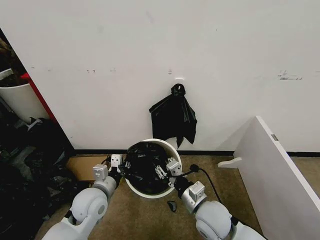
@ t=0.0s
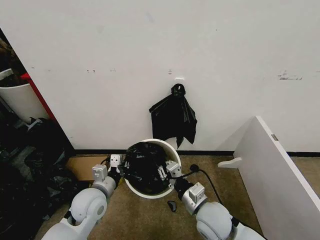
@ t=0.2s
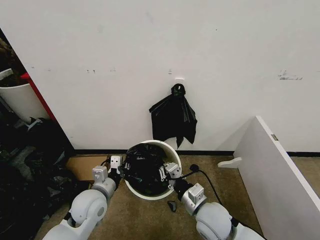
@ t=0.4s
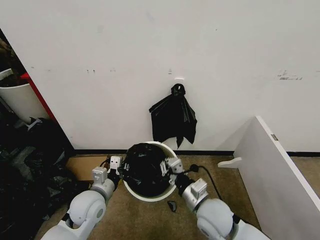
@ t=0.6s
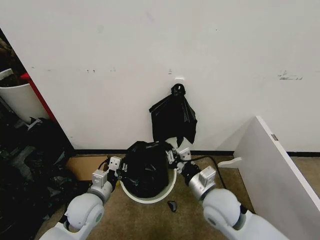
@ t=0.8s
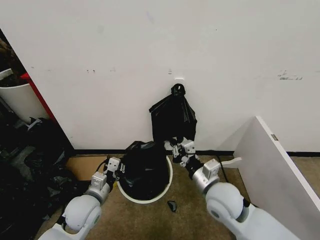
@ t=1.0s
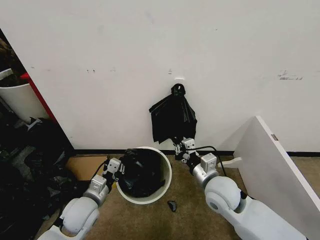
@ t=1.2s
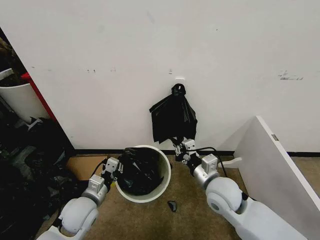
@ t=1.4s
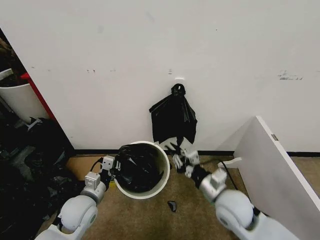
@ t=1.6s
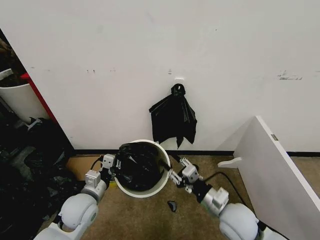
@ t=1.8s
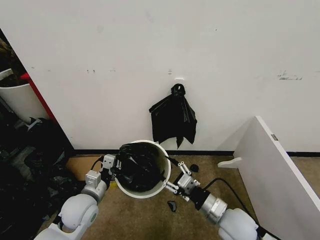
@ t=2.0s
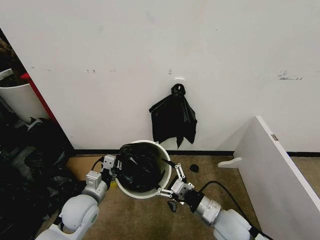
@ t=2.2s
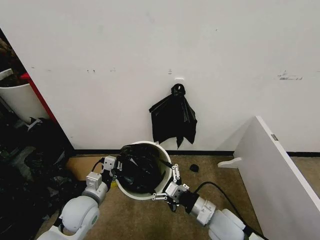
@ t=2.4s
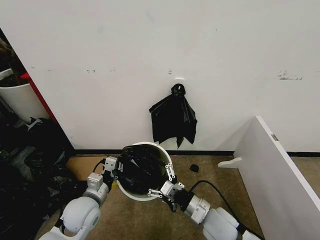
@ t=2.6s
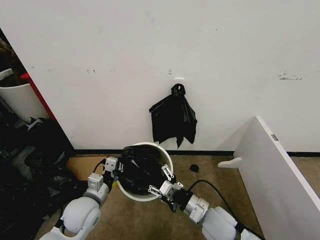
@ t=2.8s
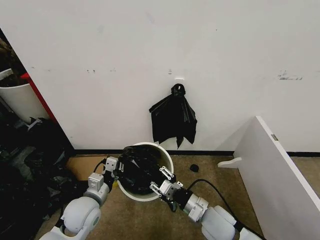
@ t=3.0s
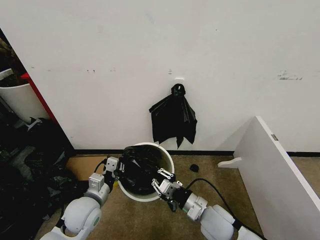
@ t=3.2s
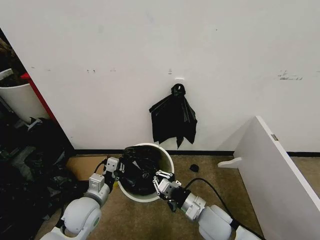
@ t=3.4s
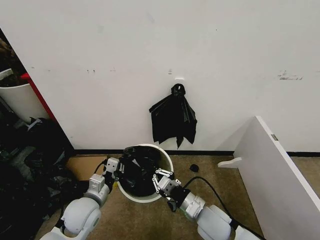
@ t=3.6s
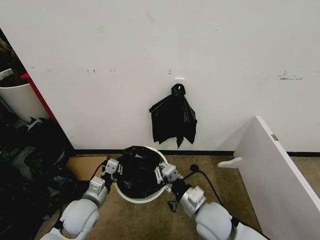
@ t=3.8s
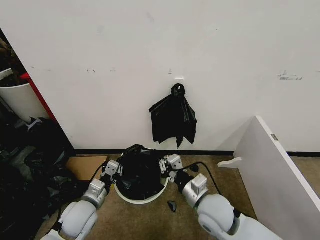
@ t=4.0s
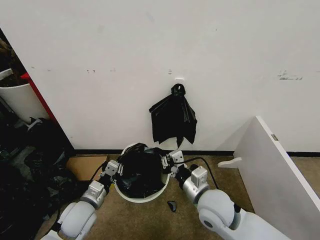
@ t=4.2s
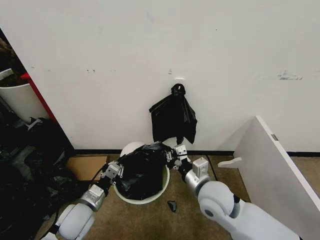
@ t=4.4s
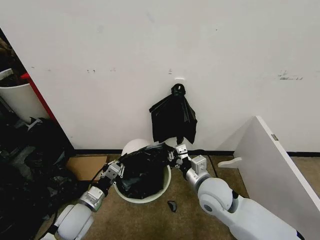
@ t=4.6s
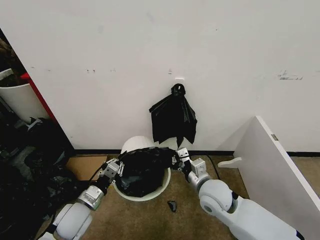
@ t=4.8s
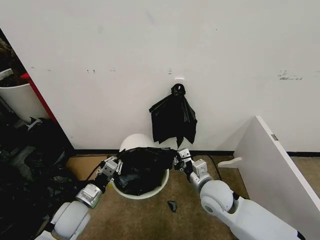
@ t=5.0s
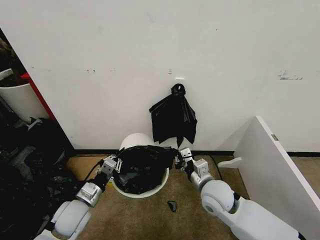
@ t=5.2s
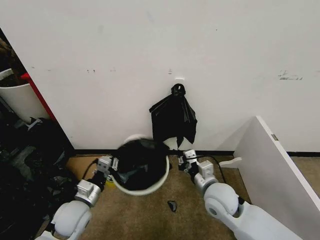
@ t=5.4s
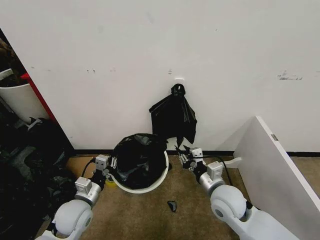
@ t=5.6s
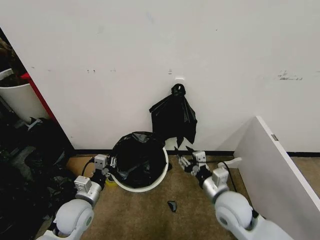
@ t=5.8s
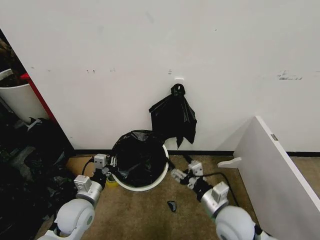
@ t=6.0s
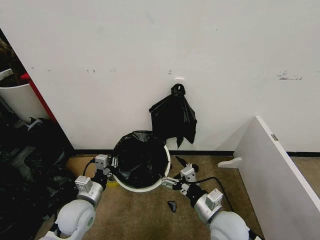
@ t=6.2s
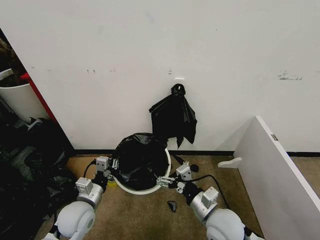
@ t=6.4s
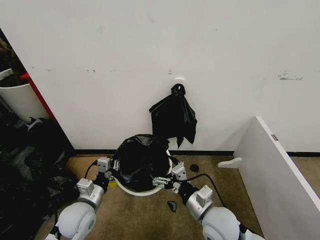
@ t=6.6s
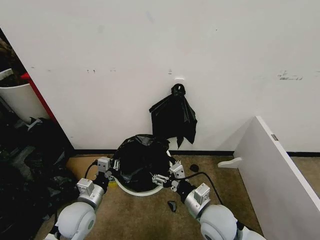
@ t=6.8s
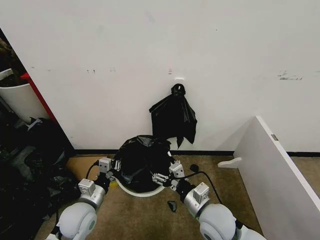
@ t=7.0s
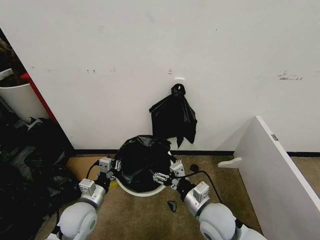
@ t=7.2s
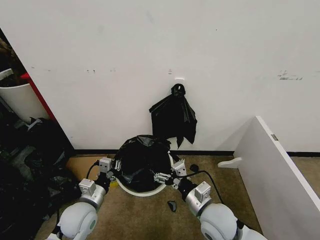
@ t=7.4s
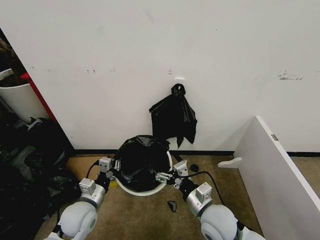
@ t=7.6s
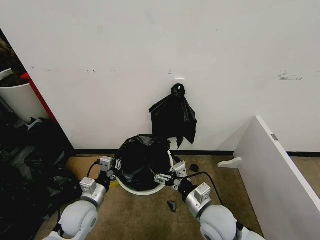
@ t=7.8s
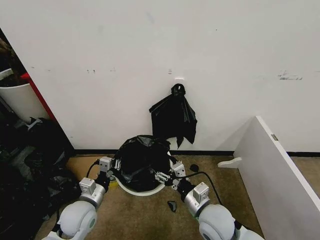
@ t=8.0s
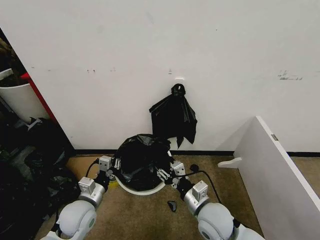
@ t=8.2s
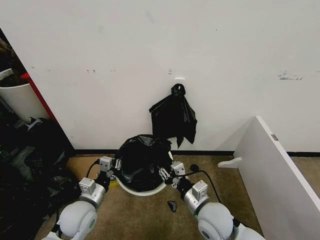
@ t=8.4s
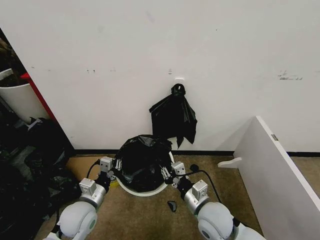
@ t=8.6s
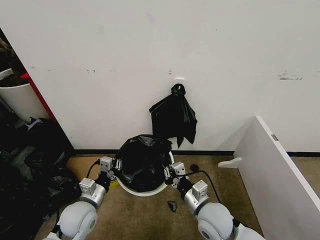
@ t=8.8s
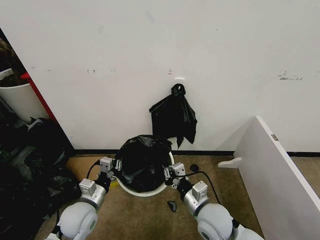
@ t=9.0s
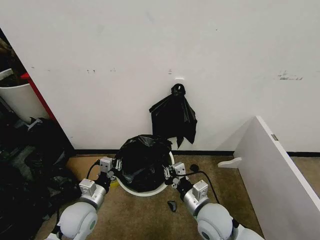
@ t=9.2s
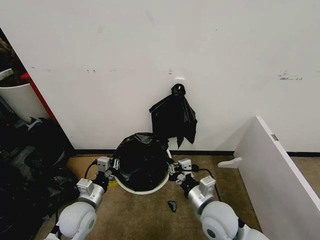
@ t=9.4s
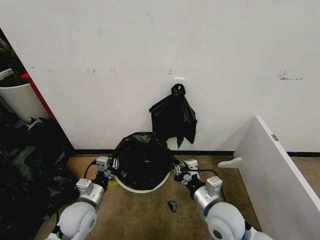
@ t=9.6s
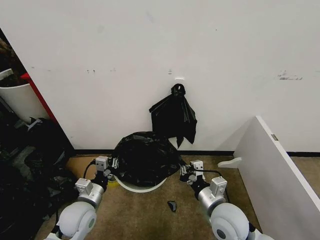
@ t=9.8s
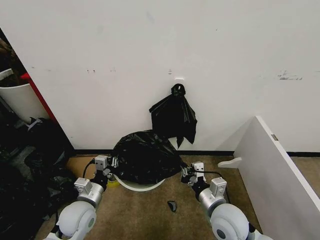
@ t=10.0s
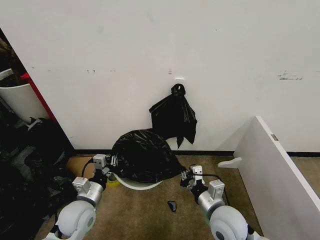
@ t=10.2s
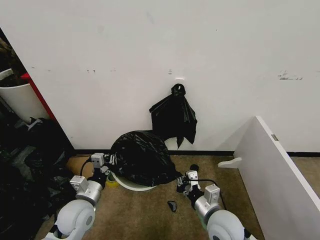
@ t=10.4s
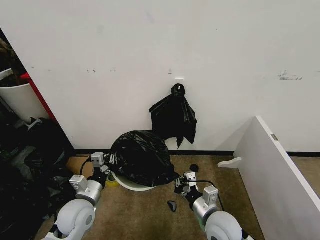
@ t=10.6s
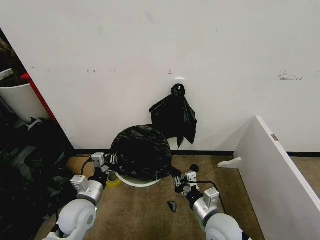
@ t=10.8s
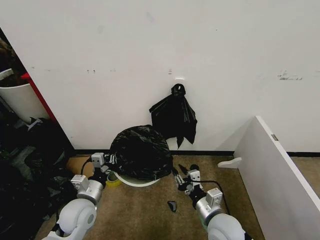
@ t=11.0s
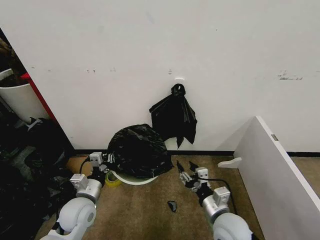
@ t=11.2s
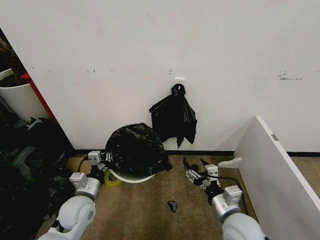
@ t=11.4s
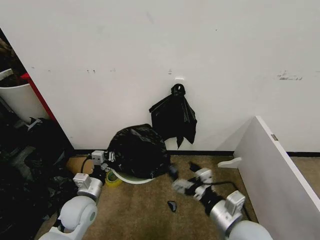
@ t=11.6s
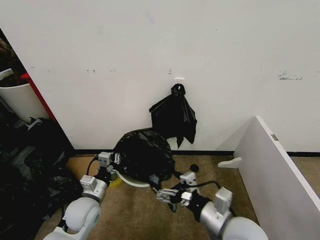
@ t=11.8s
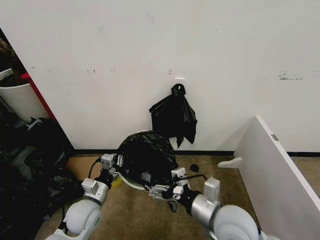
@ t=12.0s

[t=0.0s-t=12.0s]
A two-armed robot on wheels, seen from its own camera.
Task of the whole recording: Place the garbage bag over the trash bin.
t=0.0s to t=1.6s: The right gripper moves to the right, some 5 cm.
t=1.6s to t=3.0s: The right gripper goes some 5 cm downward, and opens and closes again.
t=3.0s to t=4.4s: The right gripper moves upward, approximately 10 cm, and closes up.
t=4.4s to t=6.0s: The right gripper shifts approximately 5 cm backward, and opens.
t=6.0s to t=7.6s: The grippers stay close to where they were, moving slightly.
t=7.6s to t=9.0s: The right gripper closes.
t=9.0s to t=10.4s: There are only small adjustments of the grippers.
t=10.4s to t=12.0s: The right gripper goes approximately 10 cm upward, and opens its fingers.

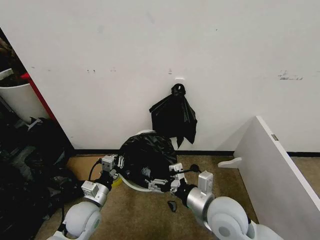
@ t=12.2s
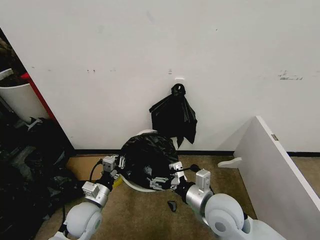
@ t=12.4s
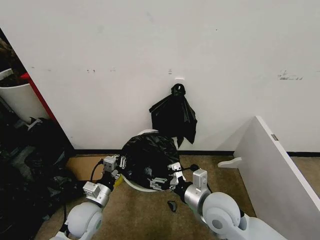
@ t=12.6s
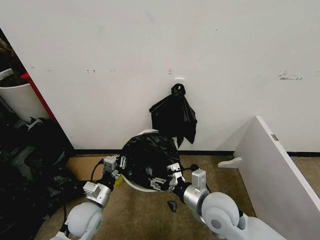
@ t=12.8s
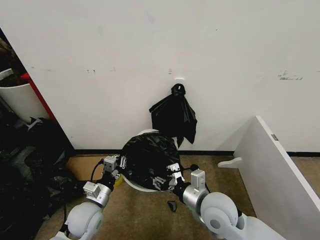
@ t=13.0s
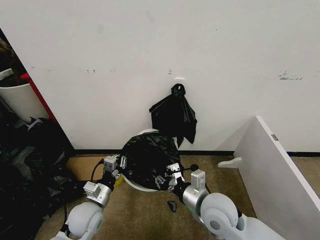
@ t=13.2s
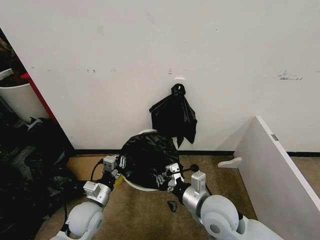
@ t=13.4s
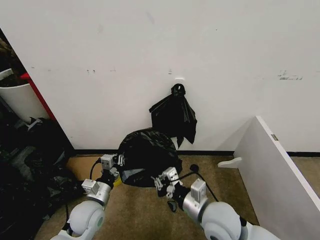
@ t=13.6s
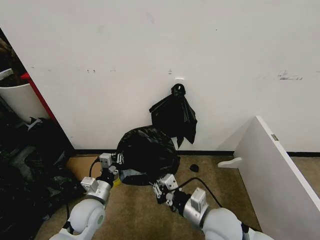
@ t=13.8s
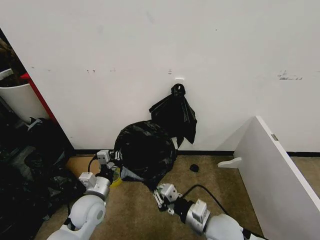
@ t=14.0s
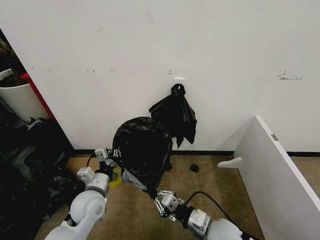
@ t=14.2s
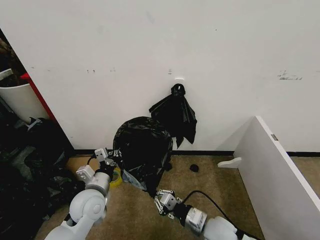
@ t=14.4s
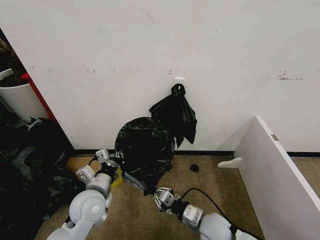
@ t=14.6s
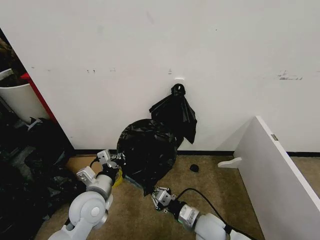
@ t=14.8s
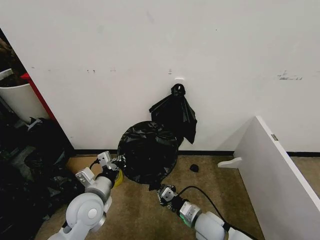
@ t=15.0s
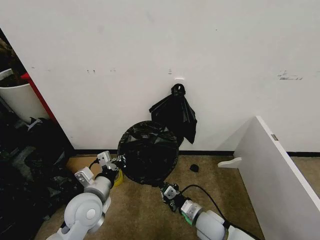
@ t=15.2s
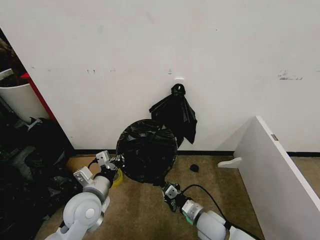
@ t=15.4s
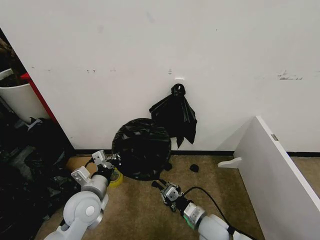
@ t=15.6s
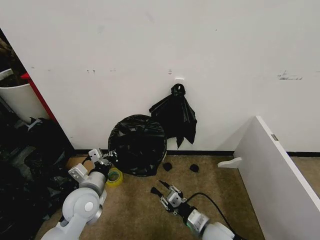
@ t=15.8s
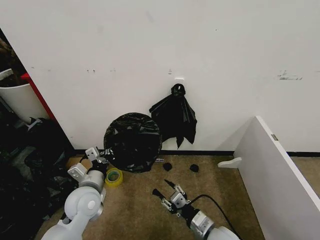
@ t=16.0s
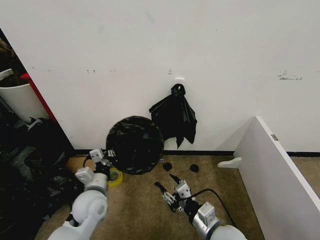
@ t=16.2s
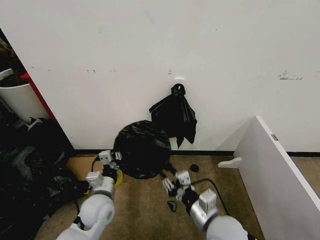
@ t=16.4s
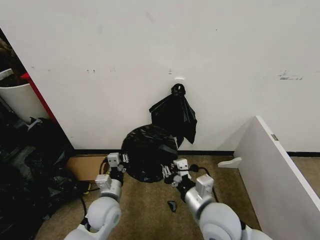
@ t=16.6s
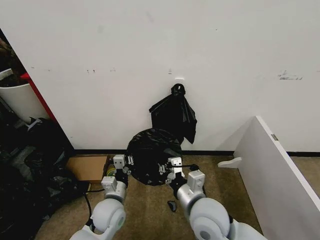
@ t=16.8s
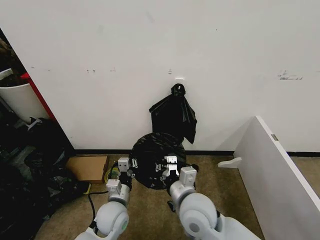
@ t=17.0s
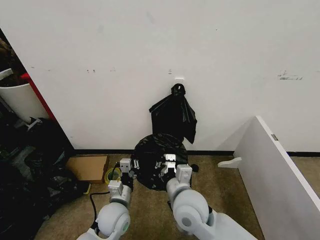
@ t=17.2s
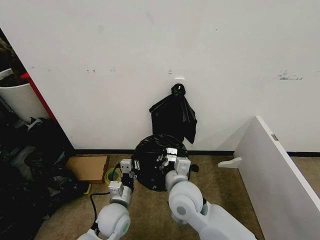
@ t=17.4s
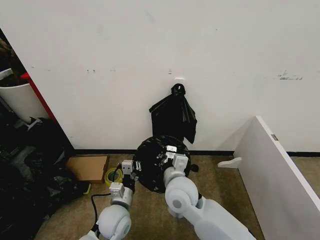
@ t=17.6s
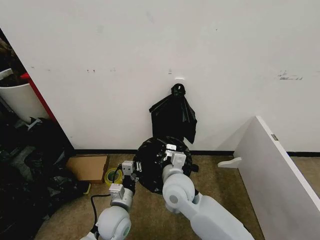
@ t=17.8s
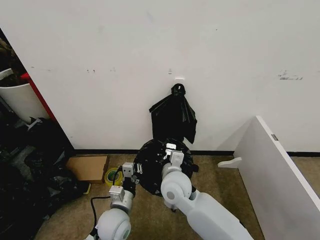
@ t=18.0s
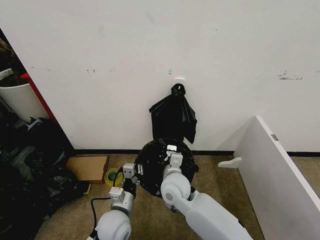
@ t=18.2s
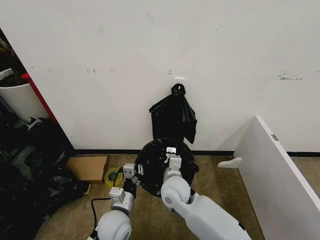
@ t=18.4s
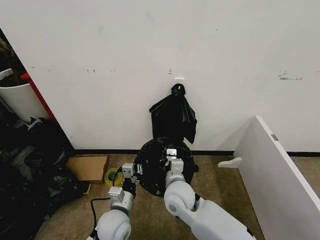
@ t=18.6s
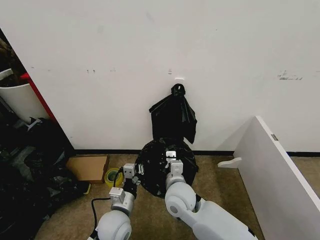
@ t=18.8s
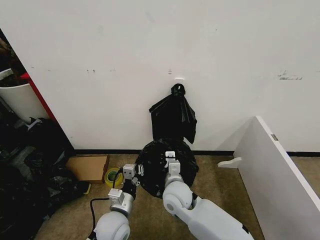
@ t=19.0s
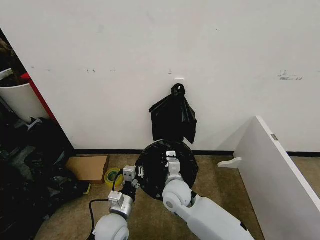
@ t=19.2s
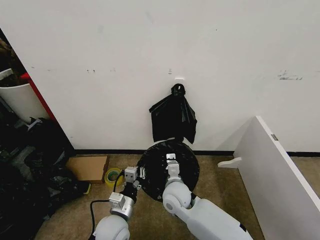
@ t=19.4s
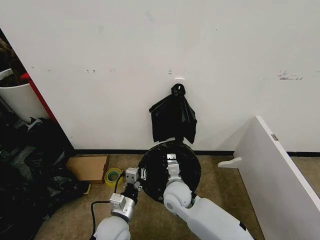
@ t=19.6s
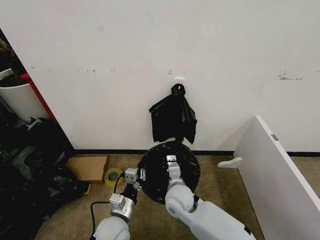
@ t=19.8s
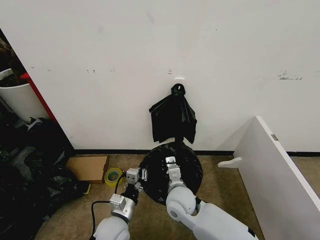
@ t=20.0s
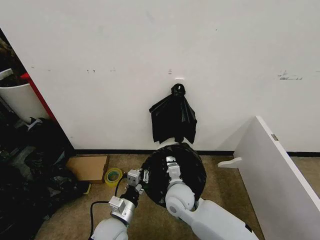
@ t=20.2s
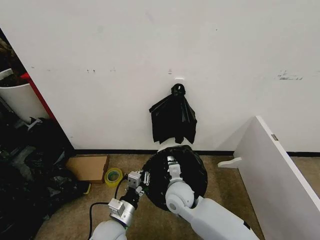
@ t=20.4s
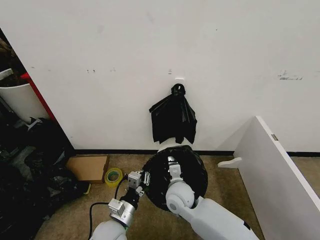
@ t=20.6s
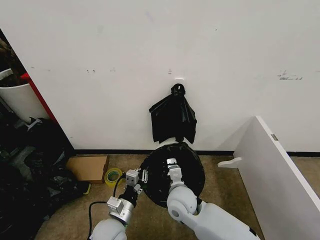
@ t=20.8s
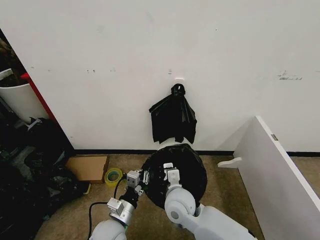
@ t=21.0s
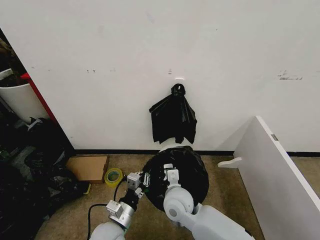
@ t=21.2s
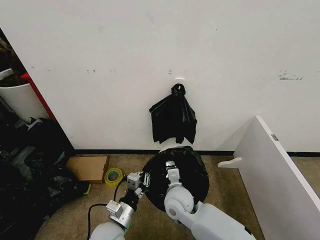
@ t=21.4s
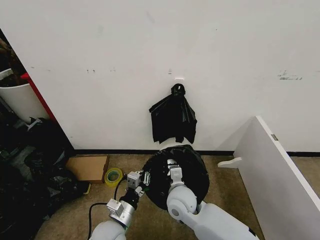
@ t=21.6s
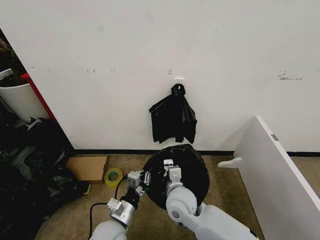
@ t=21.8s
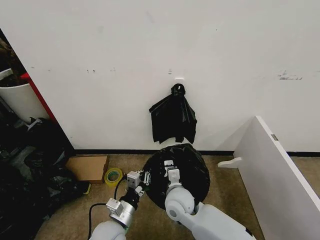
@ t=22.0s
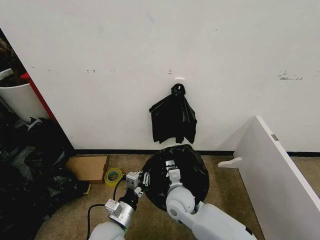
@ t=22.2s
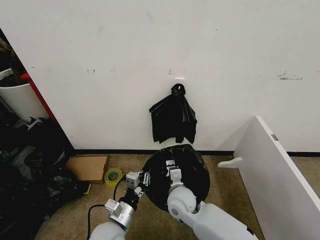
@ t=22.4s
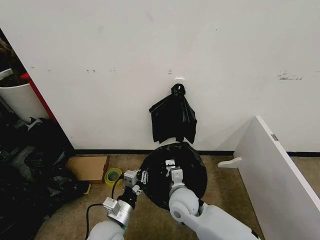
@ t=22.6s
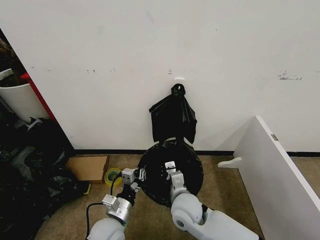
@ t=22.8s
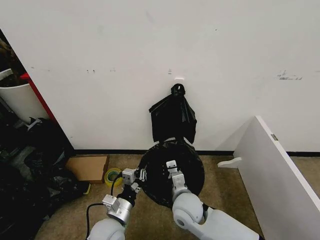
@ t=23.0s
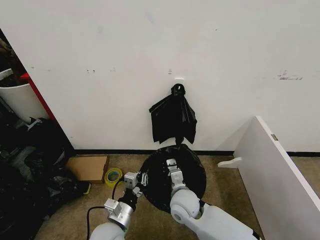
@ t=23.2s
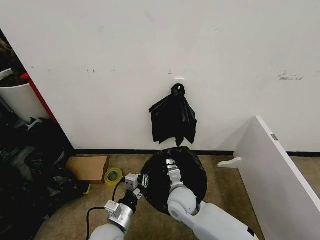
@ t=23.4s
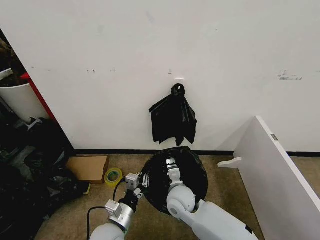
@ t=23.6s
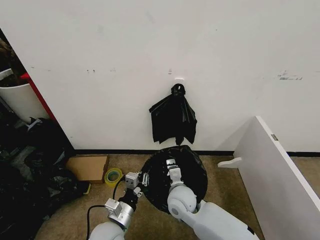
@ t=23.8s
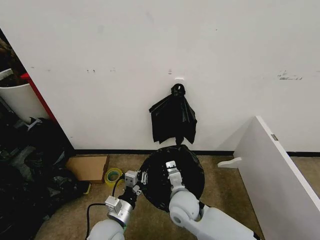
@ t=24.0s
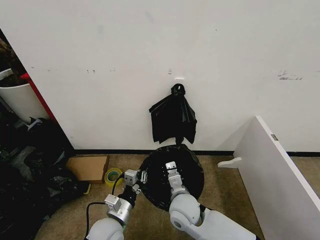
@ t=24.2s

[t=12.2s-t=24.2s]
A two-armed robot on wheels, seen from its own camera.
Task of the whole recording: Place the garbage bag over the trash bin.
t=12.2s to t=13.8s: The right gripper closes its fingers.
t=13.8s to t=15.2s: The left gripper moves upward, roughly 5 cm; the right gripper shifts about 15 cm downward.
t=15.2s to t=16.6s: The left gripper goes roughly 5 cm downward, while the right gripper shifts approximately 15 cm upward, and opens and closes again.
t=16.6s to t=18.2s: The left gripper moves approximately 5 cm, while the right gripper shifts approximately 15 cm forward and to the left.
t=18.2s to t=19.8s: The right gripper shifts approximately 5 cm downward.
t=19.8s to t=24.2s: The grippers move only a little.
